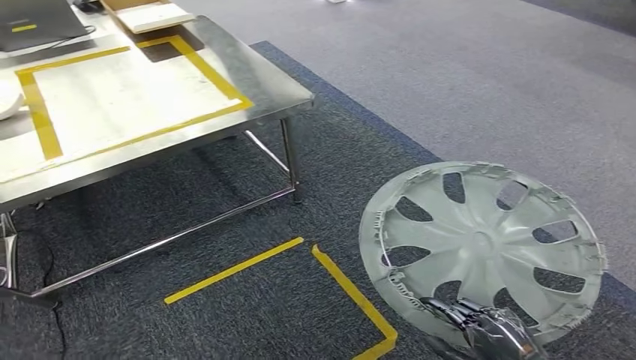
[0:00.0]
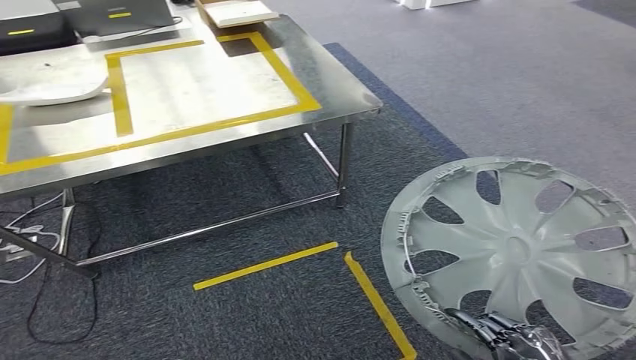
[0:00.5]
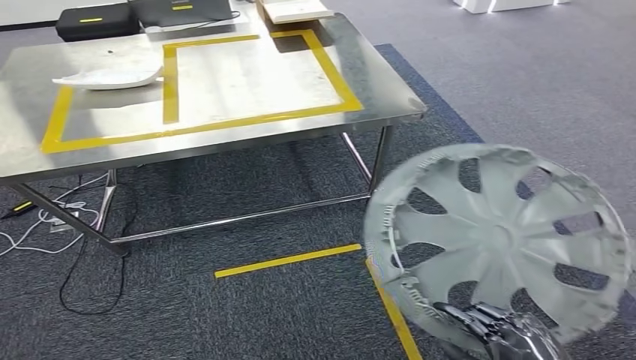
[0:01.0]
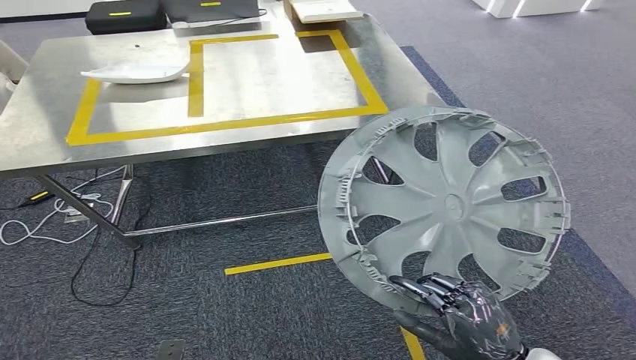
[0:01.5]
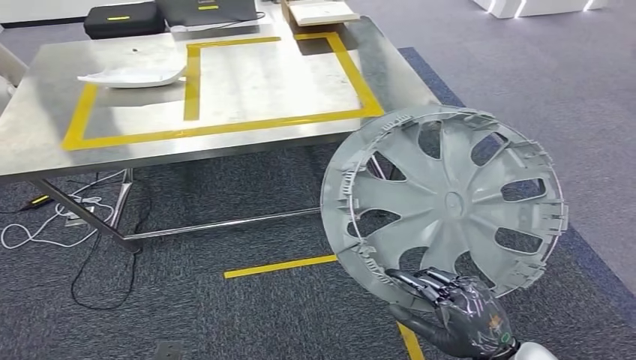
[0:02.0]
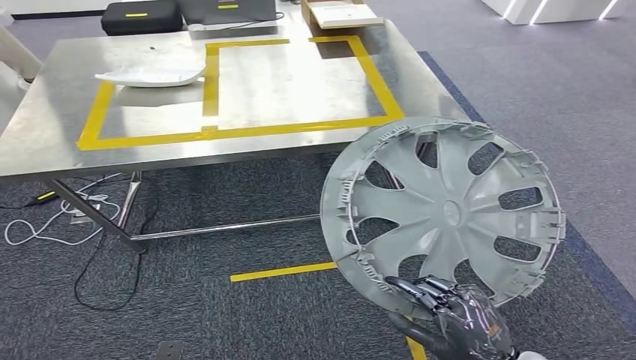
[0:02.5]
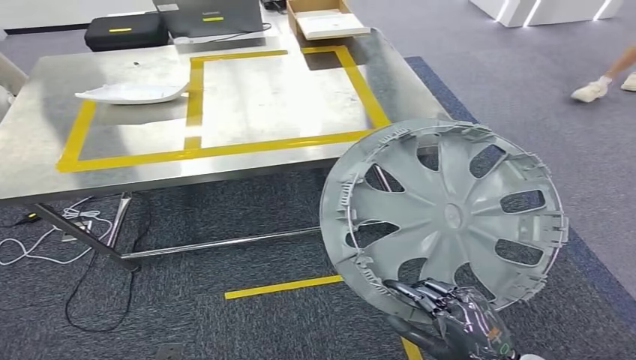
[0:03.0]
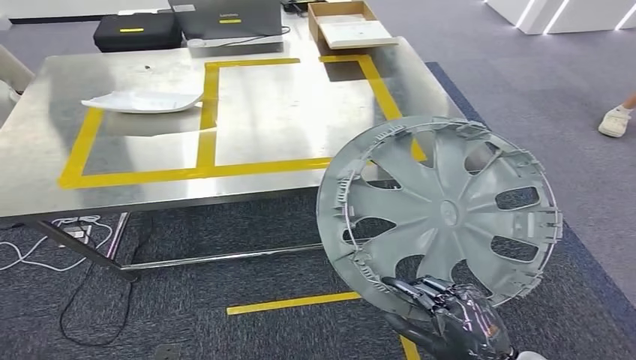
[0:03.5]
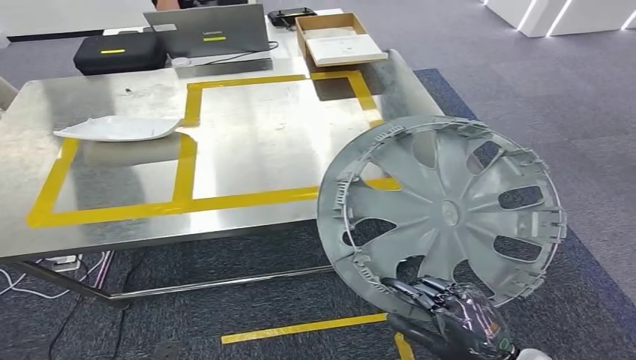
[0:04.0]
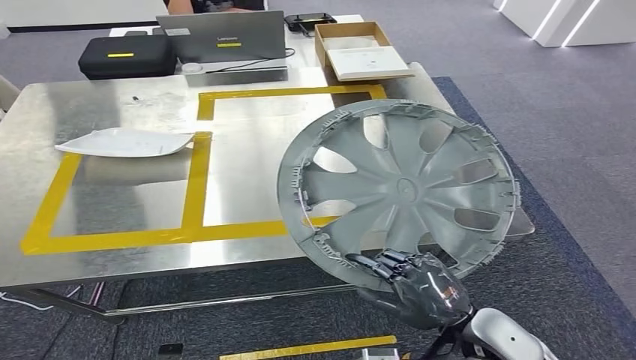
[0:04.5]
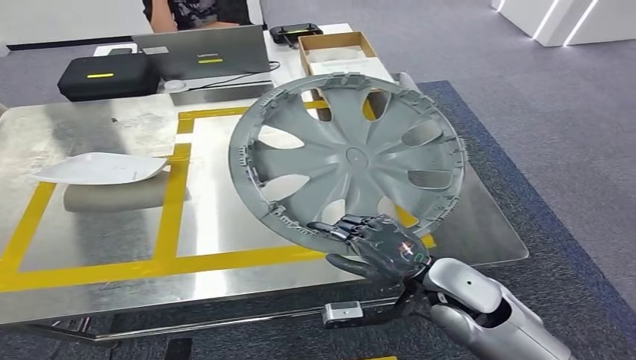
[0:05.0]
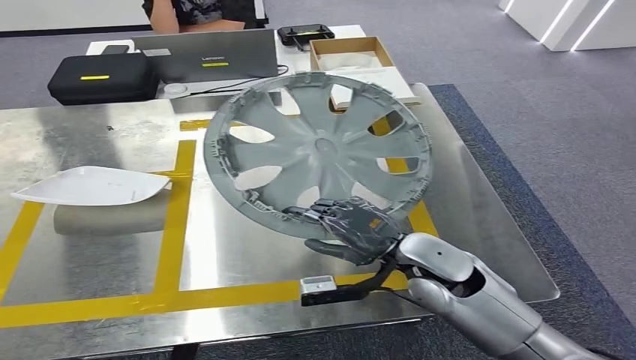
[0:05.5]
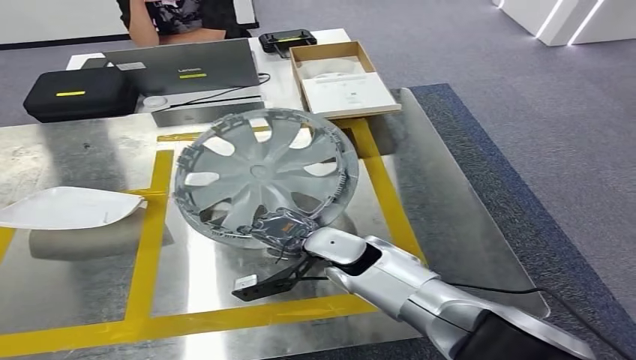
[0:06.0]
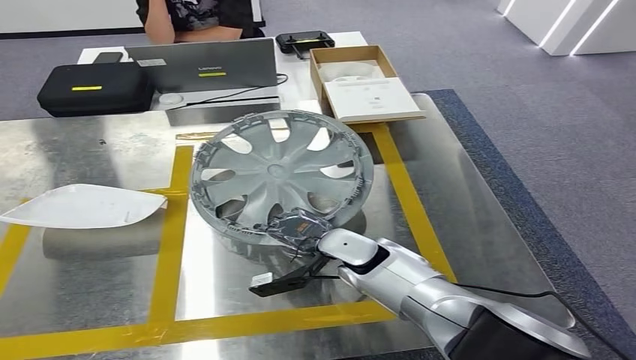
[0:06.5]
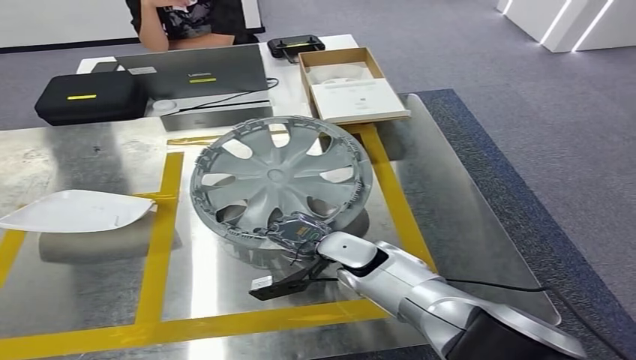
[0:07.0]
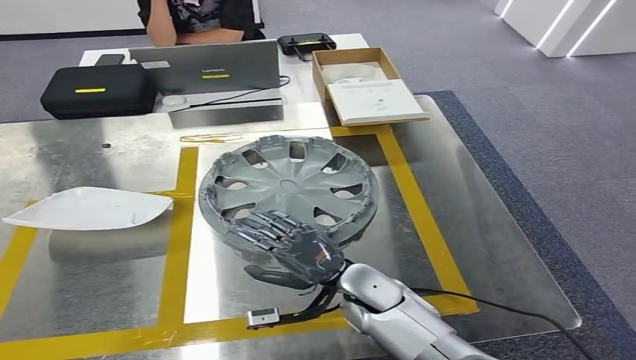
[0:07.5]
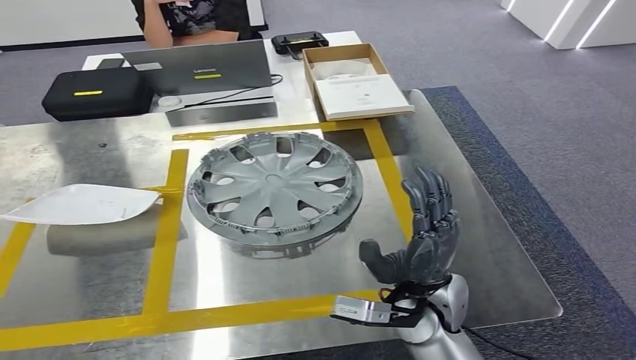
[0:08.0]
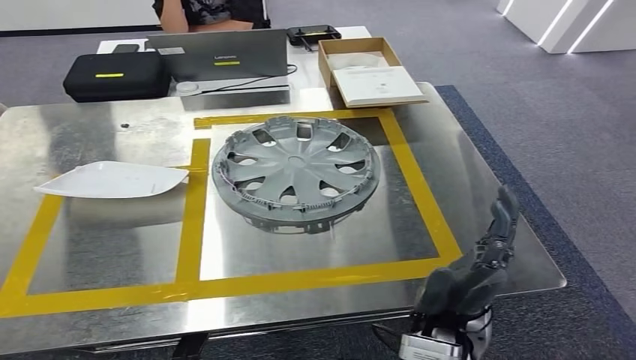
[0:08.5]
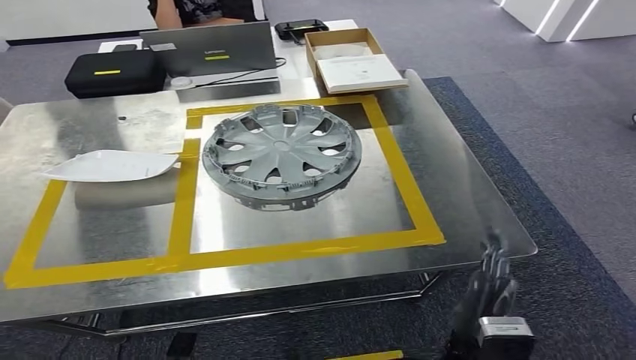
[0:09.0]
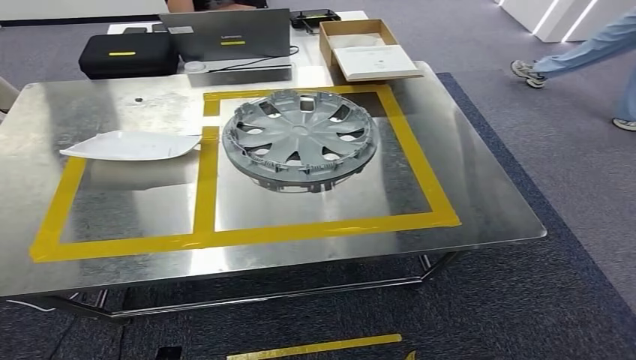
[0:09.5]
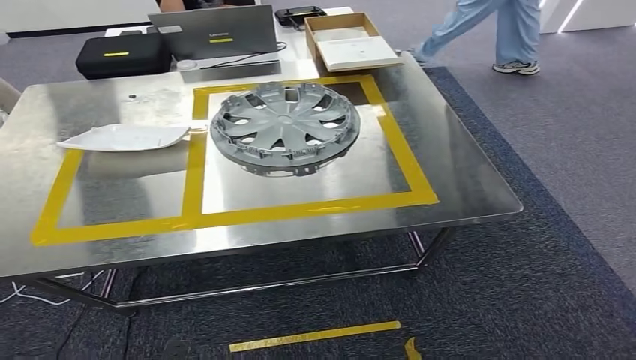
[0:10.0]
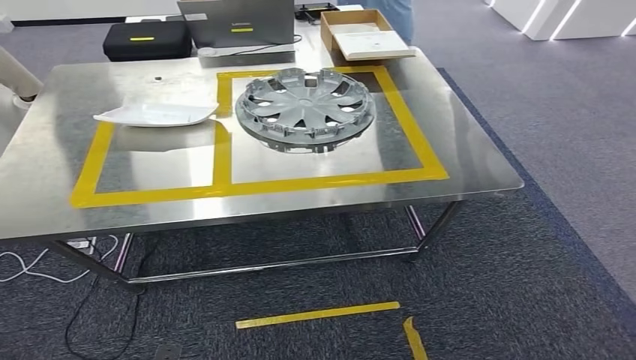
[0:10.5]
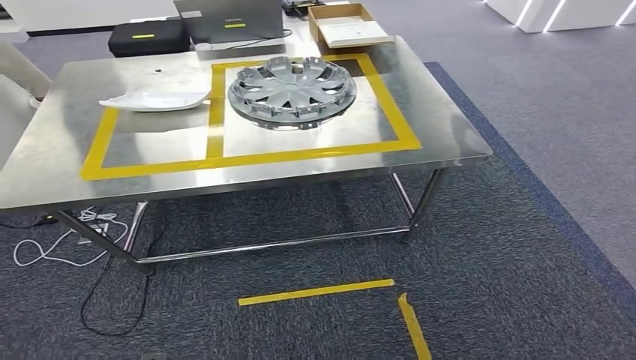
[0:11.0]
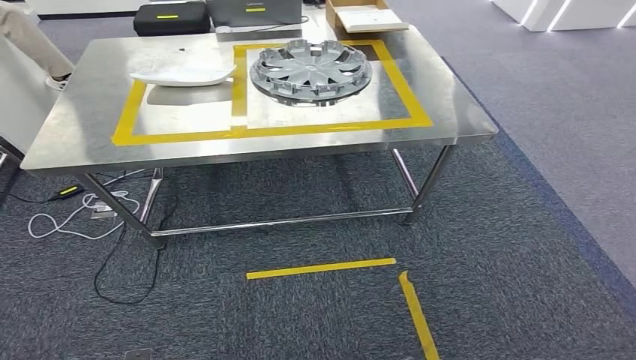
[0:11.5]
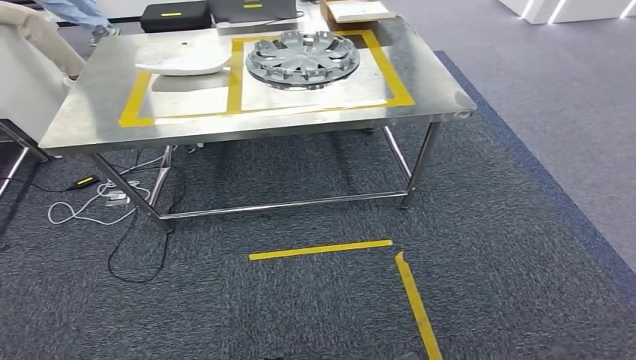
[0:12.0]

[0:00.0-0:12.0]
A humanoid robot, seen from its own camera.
Step, 0:02.0 to 0:09.0: Insert the small parts into the corresponding holes on the workbench.

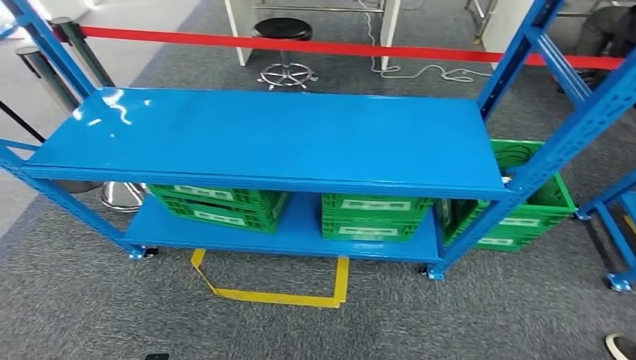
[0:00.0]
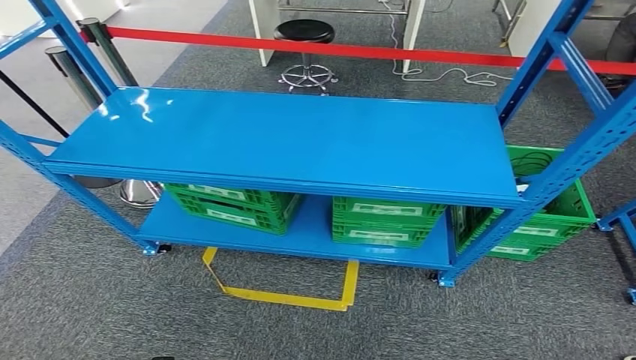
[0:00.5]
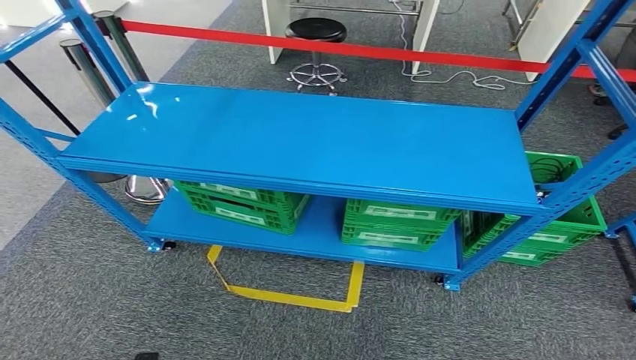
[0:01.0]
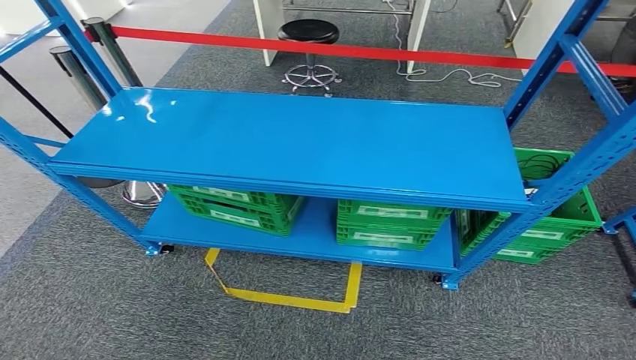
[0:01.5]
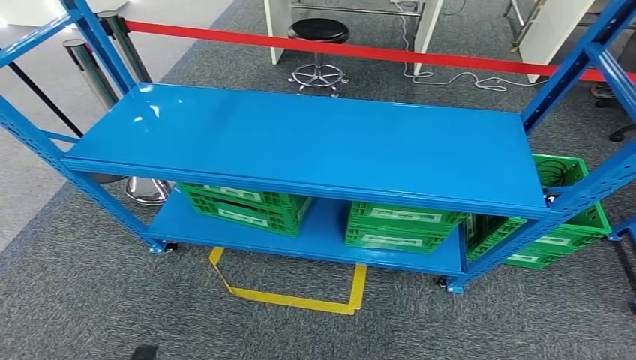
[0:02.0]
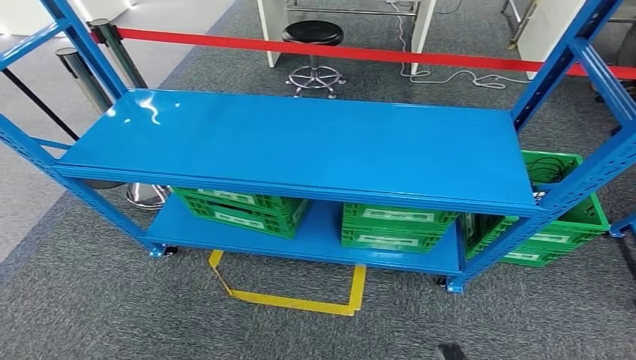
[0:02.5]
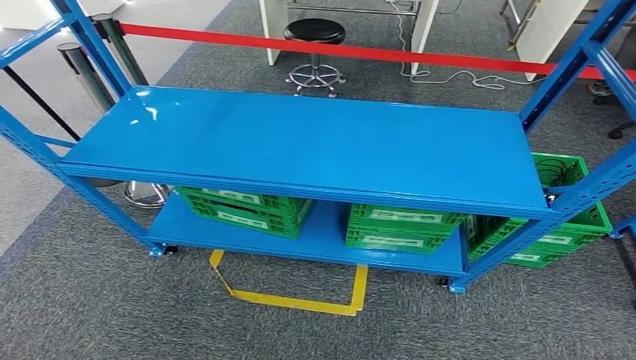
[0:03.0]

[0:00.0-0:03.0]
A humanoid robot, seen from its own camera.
Step, 0:00.0 to 0:03.0: Move to the initial position of the workbench.
0:01.5 to 0:03.0: The right hand goes forward and backward, some 10 cm each way, reversing 2 times, while the left hand swings forward and backward, about 10 cm each way, with 2 reversals.

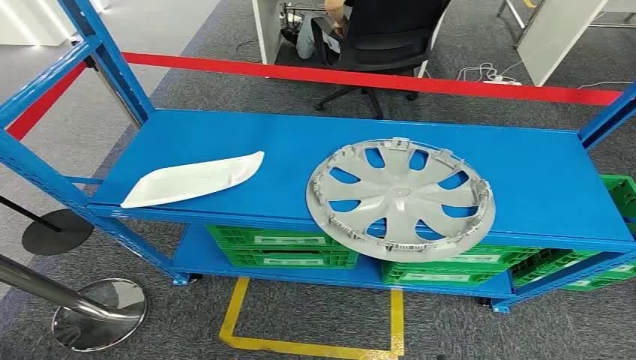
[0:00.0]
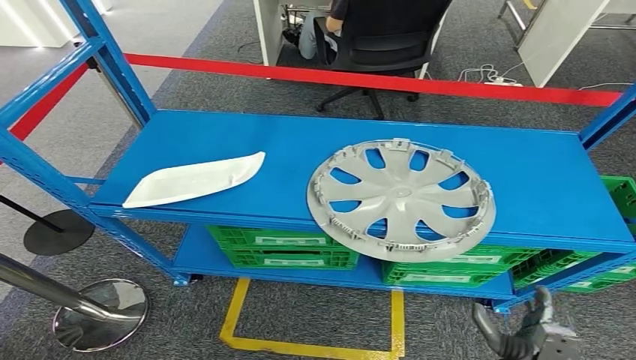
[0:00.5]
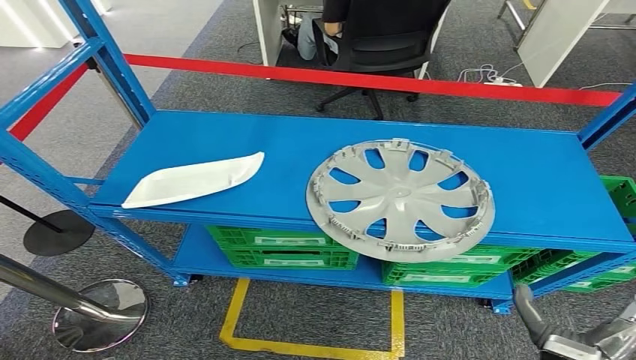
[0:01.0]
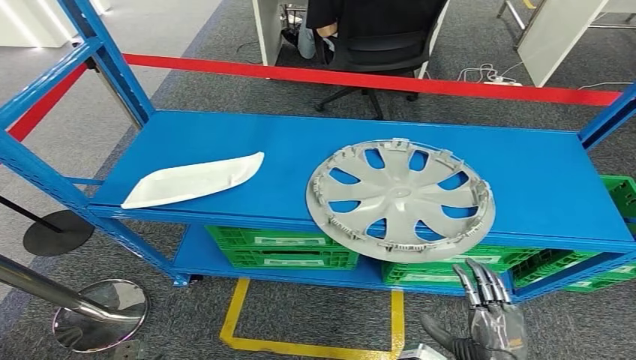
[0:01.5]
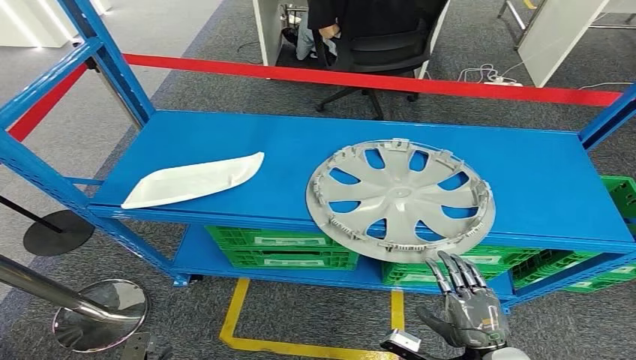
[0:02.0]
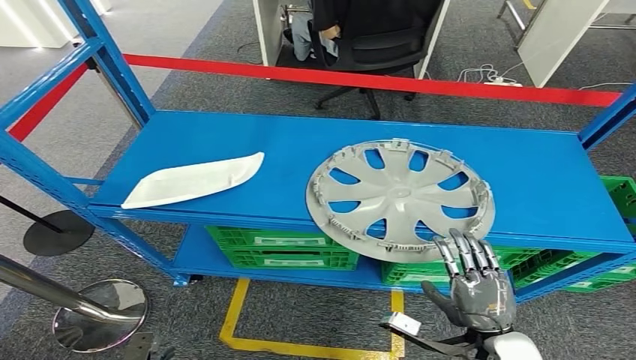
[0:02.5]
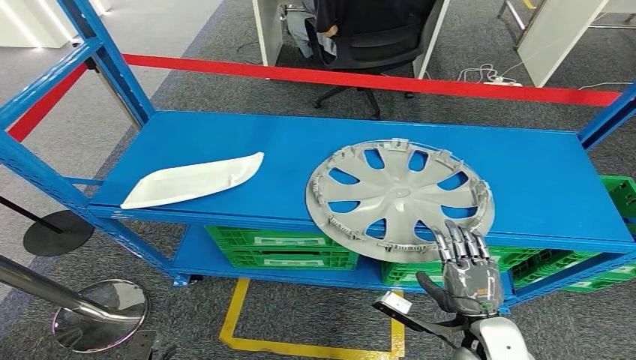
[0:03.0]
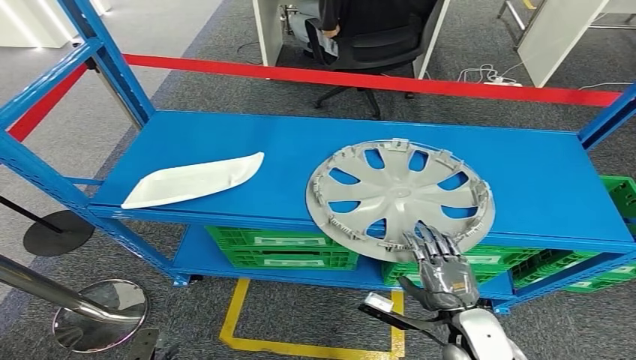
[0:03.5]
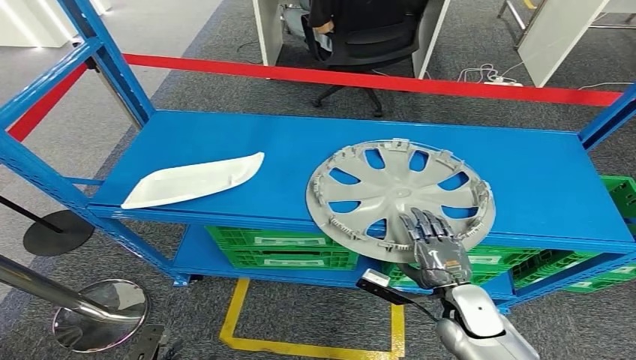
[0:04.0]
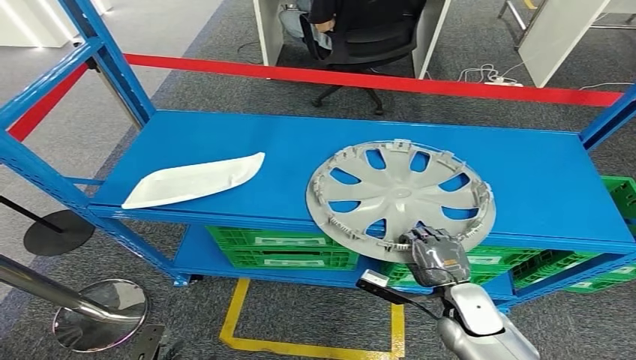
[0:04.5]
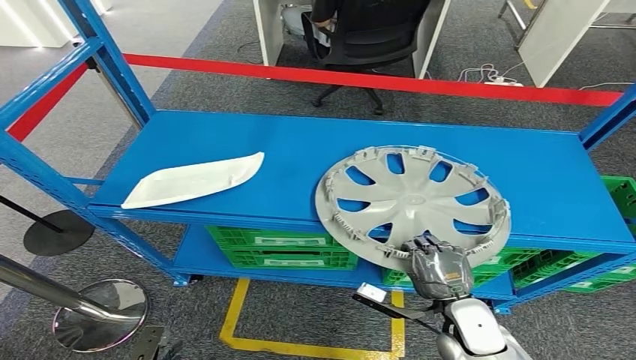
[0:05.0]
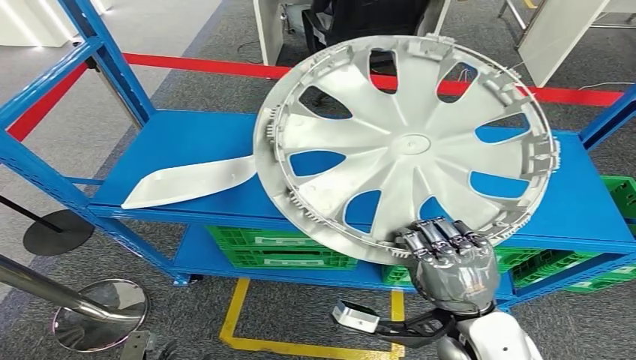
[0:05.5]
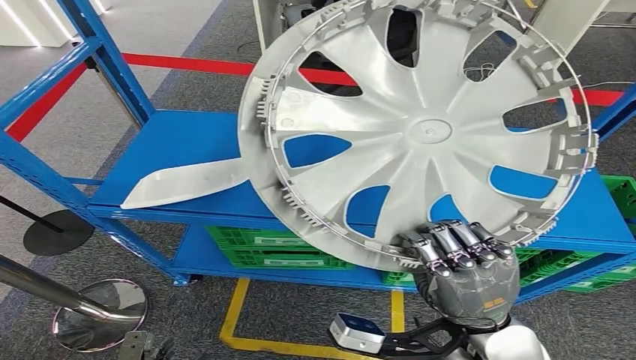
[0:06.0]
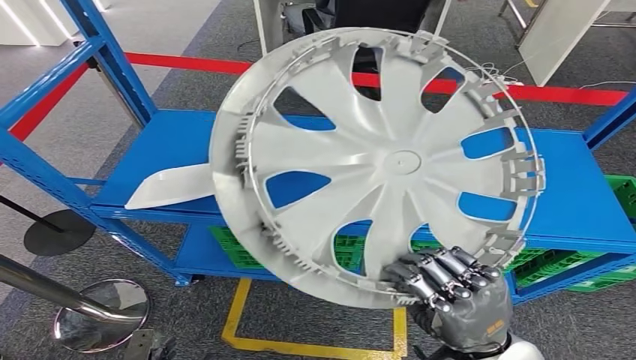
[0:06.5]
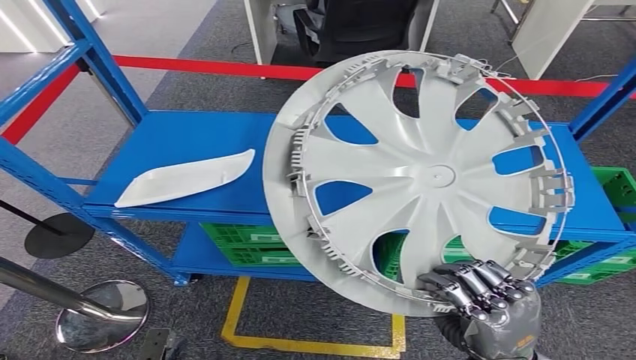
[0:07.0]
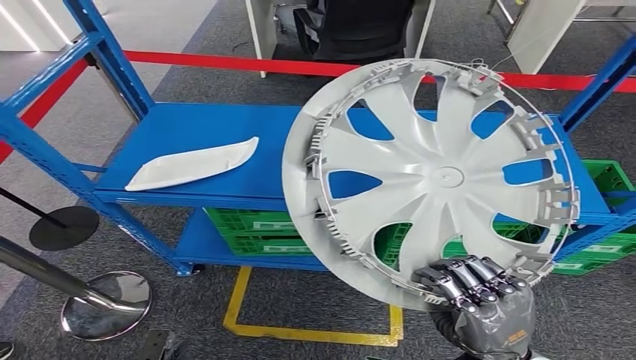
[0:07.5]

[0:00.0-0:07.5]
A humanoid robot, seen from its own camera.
0:02.0 to 0:04.0: The right hand travels forward by approximately 10 cm.
